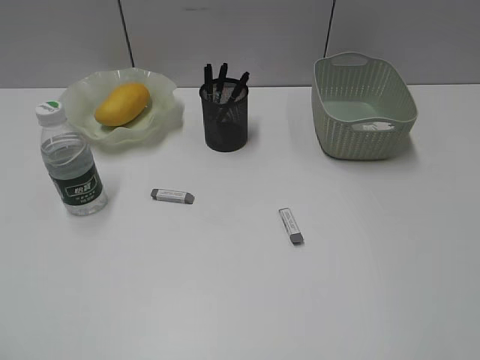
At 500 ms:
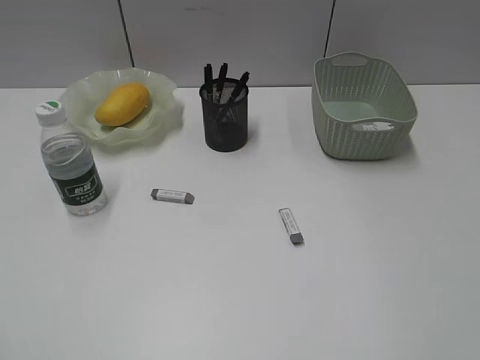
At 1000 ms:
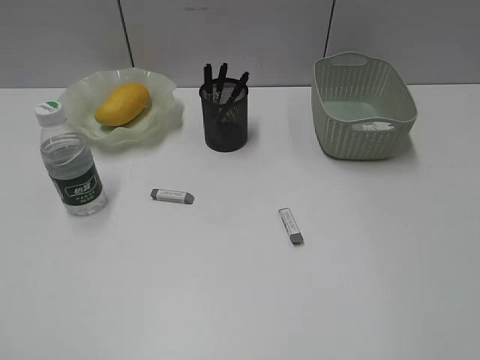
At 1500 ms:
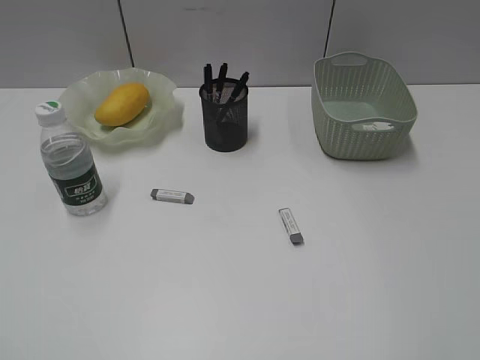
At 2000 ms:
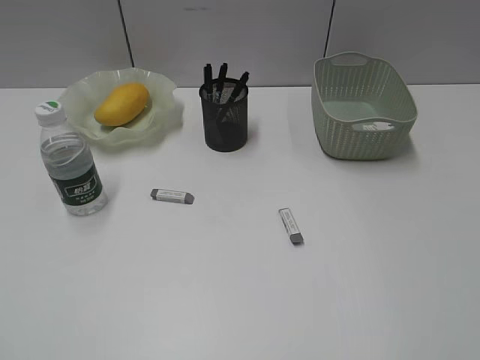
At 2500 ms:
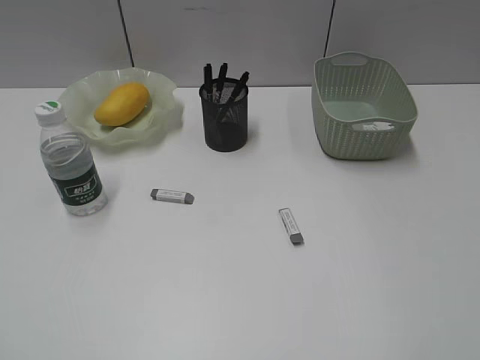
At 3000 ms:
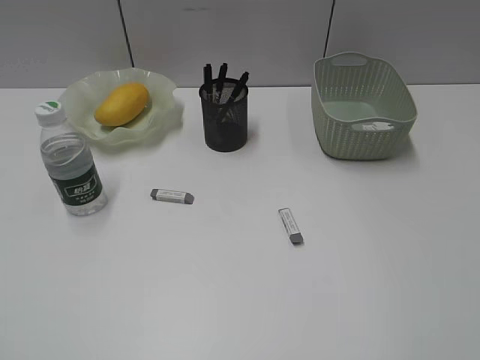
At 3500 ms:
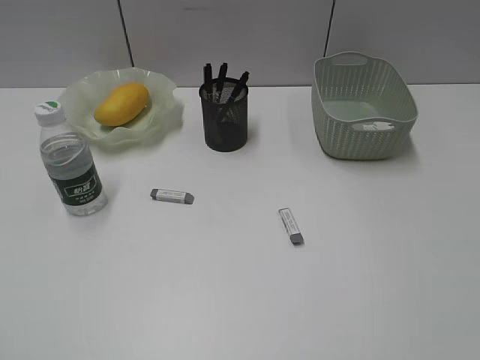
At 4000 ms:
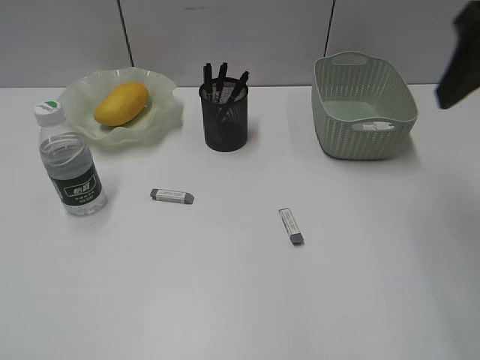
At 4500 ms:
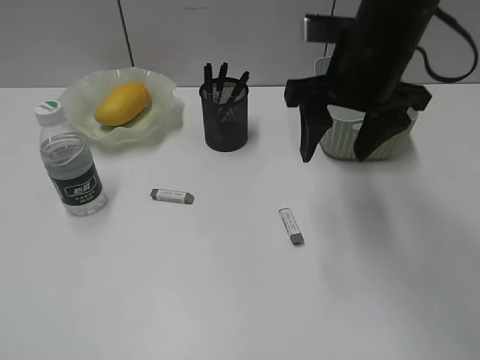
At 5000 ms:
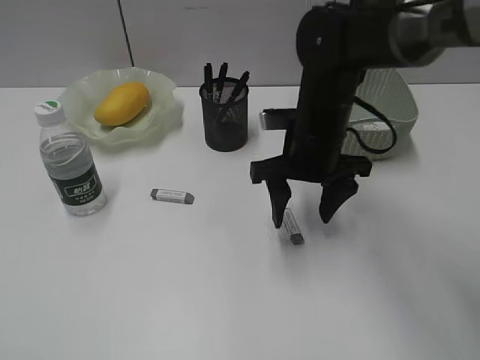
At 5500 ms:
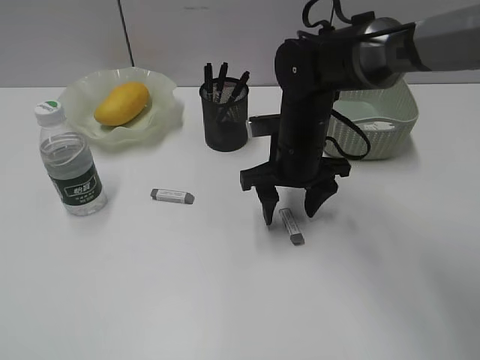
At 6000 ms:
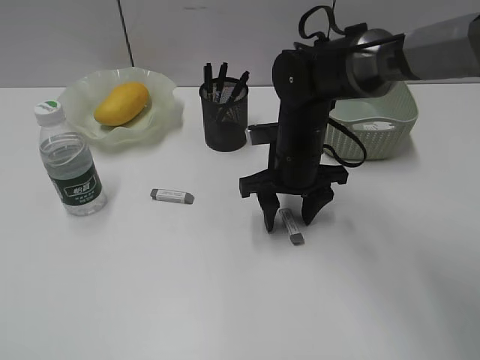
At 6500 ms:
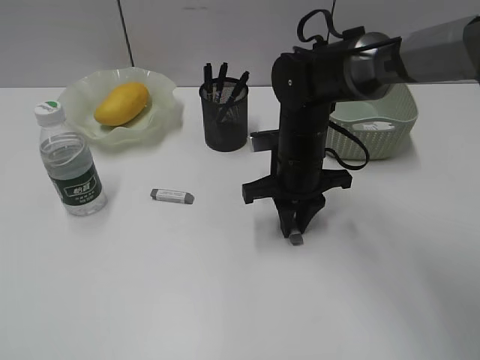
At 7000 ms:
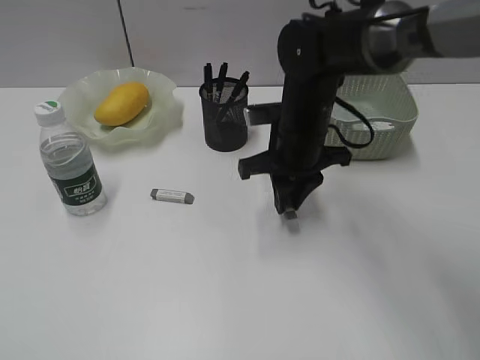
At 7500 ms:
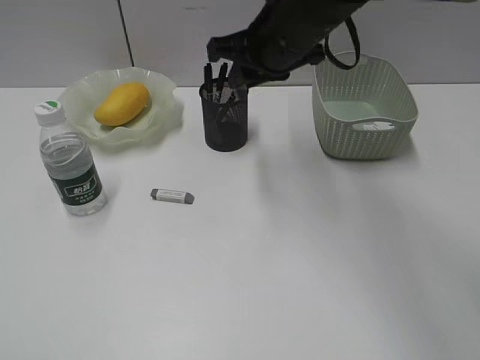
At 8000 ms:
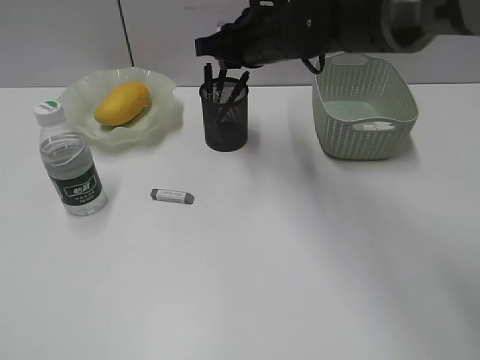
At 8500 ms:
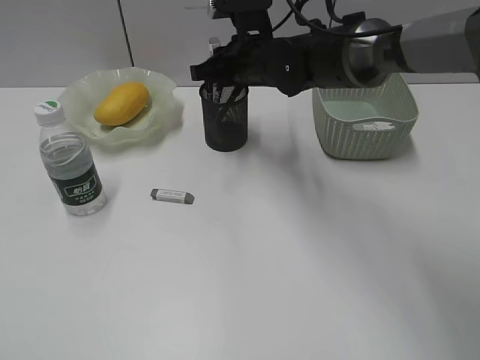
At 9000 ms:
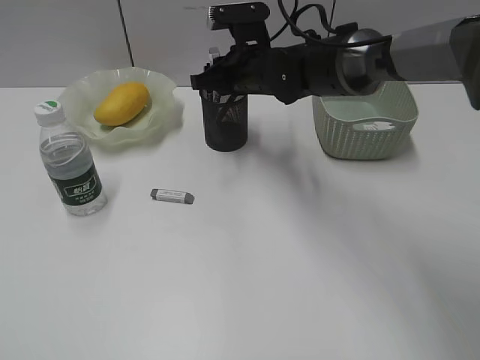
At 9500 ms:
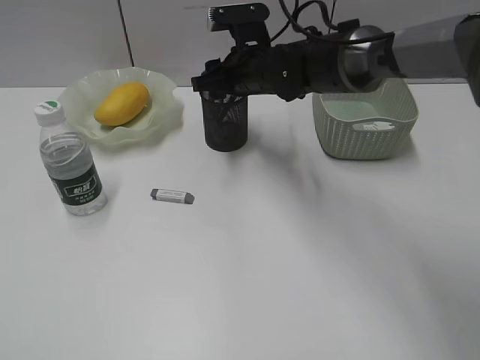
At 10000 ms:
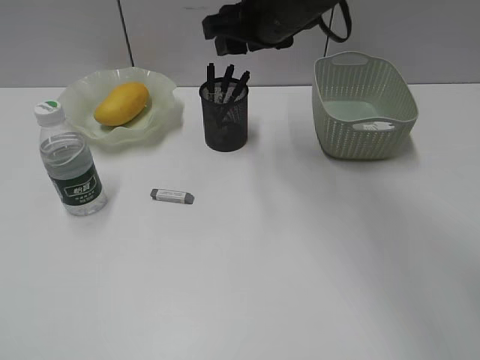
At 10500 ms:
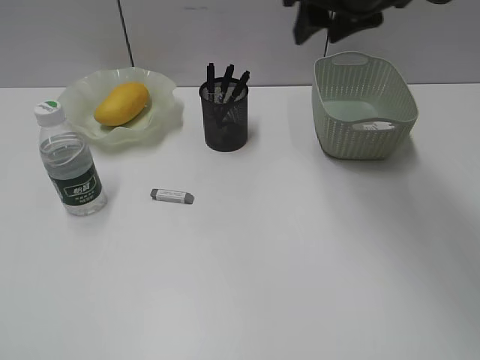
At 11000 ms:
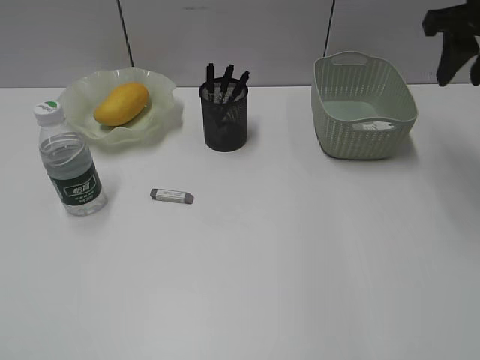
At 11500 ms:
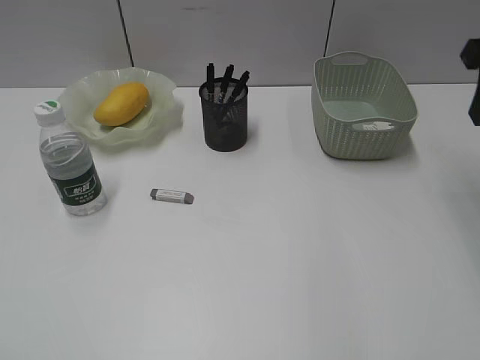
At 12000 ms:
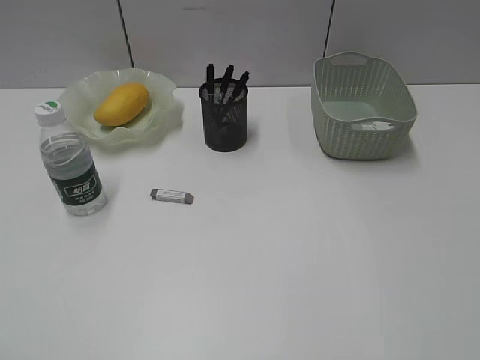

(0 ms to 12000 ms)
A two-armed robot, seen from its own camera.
Step, 0 ms - 6500 ms: Grasp the eraser with right gripper.
Step, 7000 ms - 9500 ms: Place the eraser in pen holder with right gripper.
0 ms - 2000 ms: Neither gripper changes place.
2000 ms - 4000 ms: The right gripper travels forward by approximately 25 cm.
4000 ms - 6000 ms: The right gripper moves downward, to the left and forward, about 35 cm.
6000 ms - 8000 ms: The right gripper goes roughly 15 cm upward and forward, and closes up.
8000 ms - 10000 ms: The right gripper moves about 5 cm downward and comes back, and opens its fingers.
10000 ms - 12000 ms: The right gripper is displaced backward, to the right and upward by approximately 35 cm.

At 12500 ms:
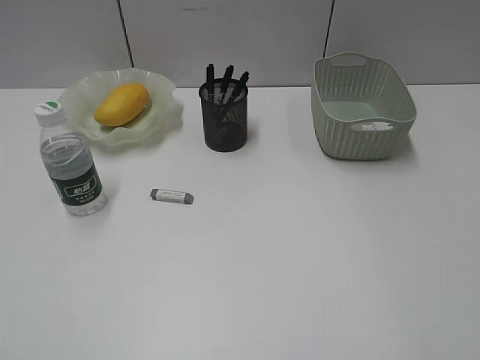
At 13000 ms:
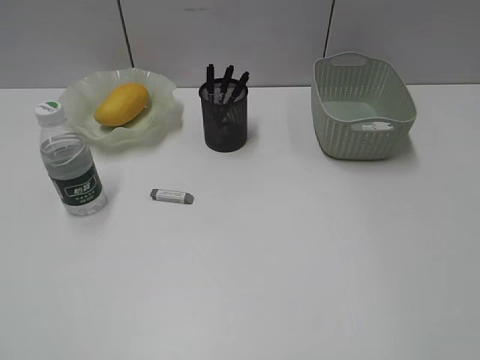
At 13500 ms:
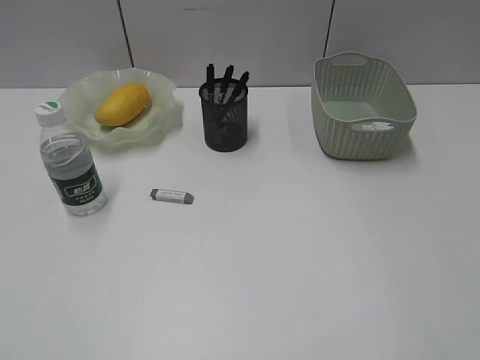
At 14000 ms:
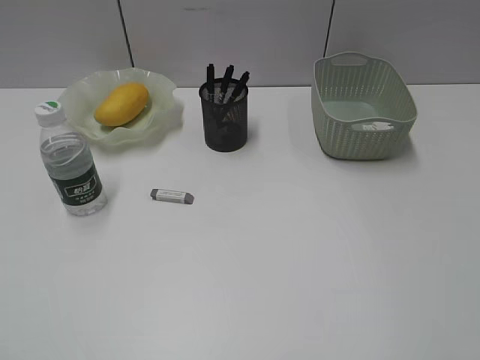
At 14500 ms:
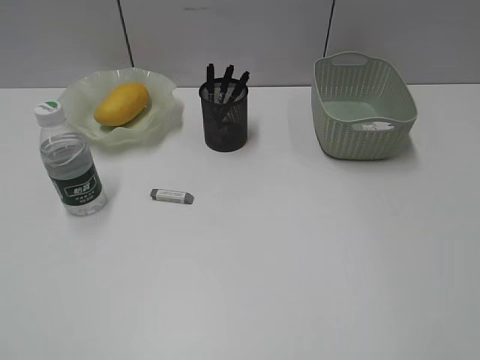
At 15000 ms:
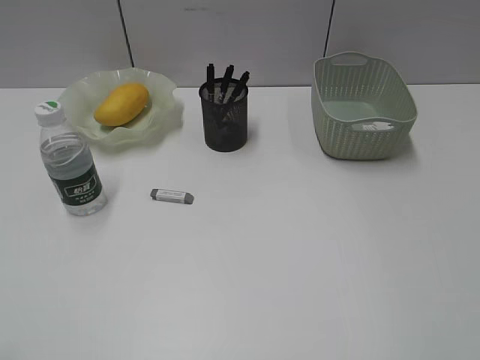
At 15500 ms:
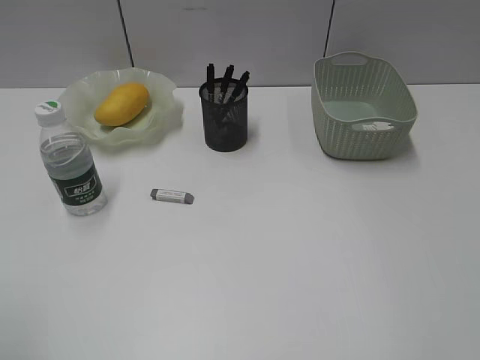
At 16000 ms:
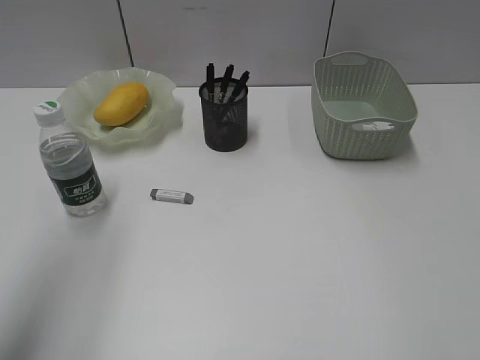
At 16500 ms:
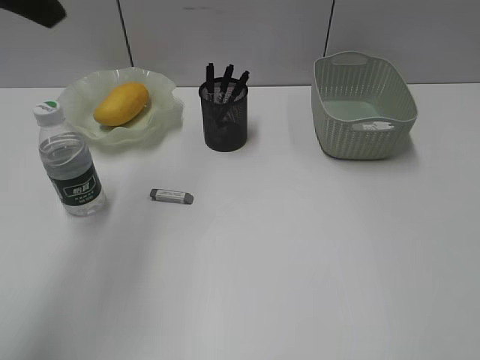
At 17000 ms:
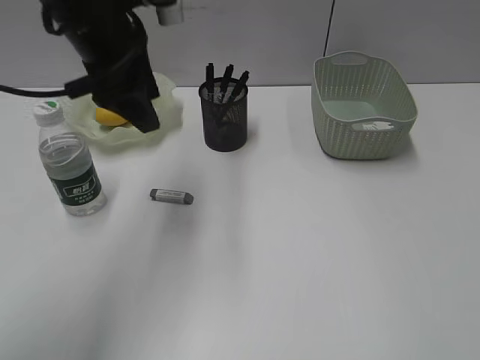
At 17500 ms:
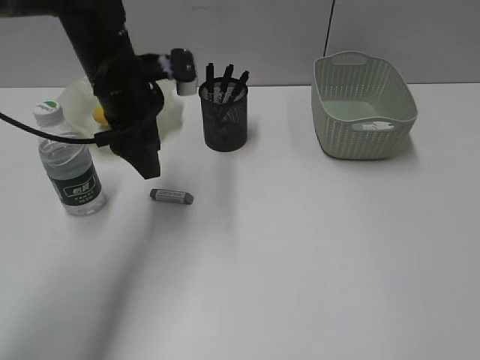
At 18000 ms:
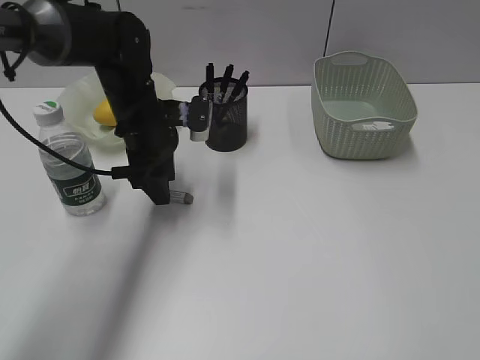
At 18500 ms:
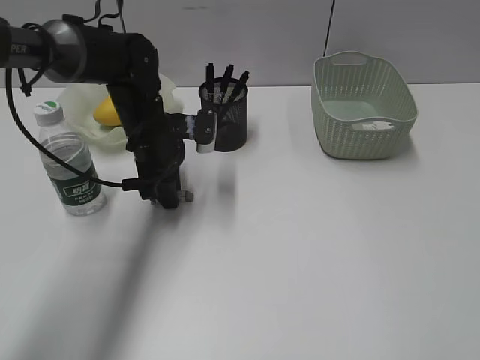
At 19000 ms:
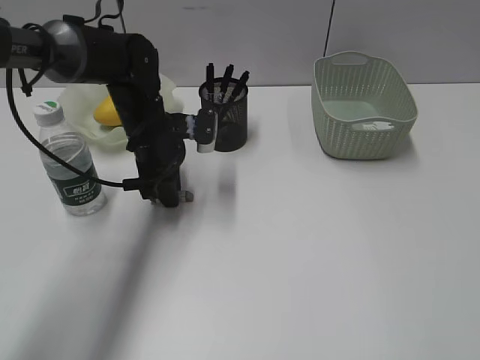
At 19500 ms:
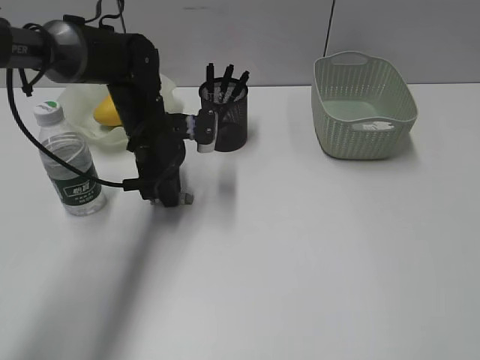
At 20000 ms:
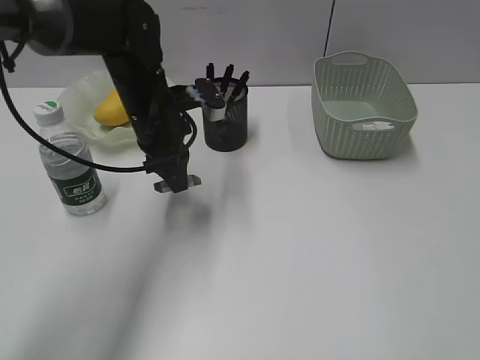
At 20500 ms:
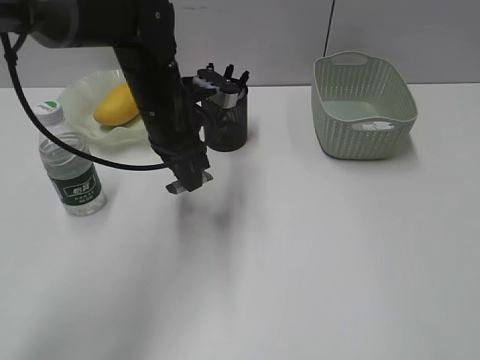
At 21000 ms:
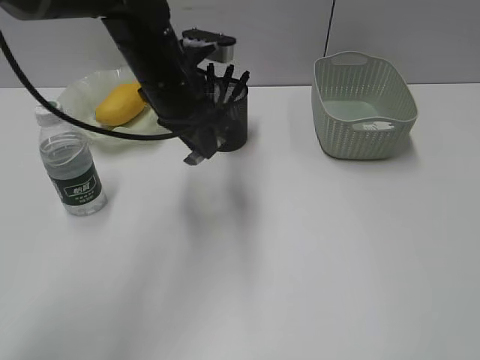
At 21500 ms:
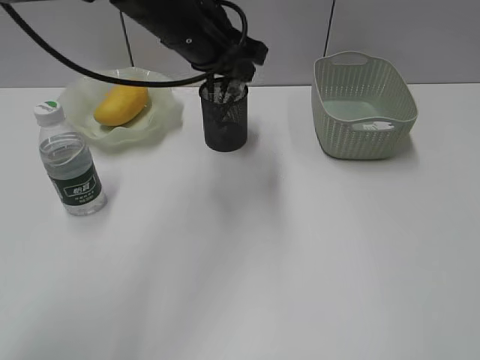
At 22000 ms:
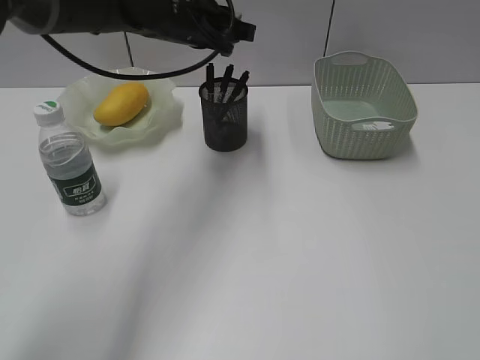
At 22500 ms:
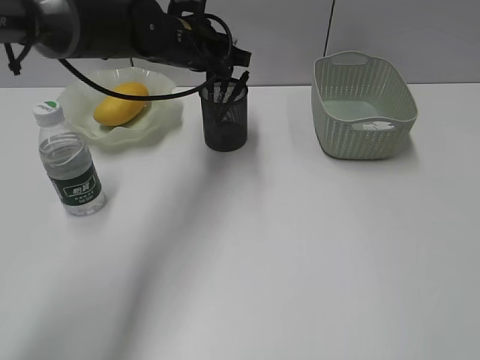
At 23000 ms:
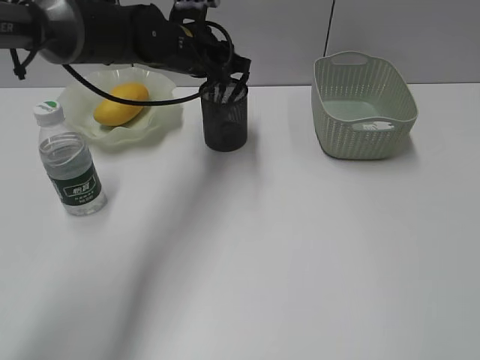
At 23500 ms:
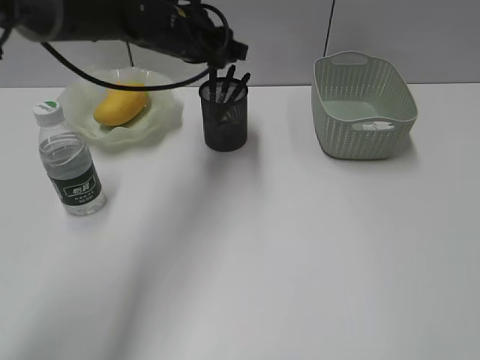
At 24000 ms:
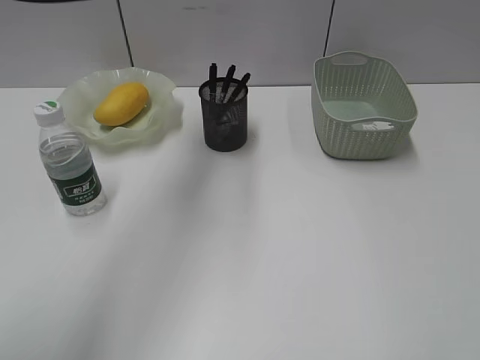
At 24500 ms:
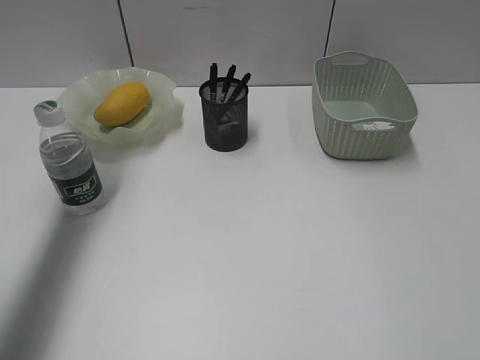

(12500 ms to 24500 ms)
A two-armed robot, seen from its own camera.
Step, 12500 ms - 19000 ms: Grasp the eraser with left gripper.
Step, 19500 ms - 23000 ms: Place the eraser in pen holder with left gripper.
14500 ms - 16500 ms: The left gripper travels forward and upward by about 35 cm, and opens its fingers.
16500 ms - 18500 ms: The left gripper goes some 30 cm downward, and closes up.
18500 ms - 20500 ms: The left gripper goes approximately 5 cm upward.
20500 ms - 22500 ms: The left gripper shifts roughly 10 cm forward.
22500 ms - 24500 ms: The left gripper moves to the left and upward, some 25 cm, and opens up.

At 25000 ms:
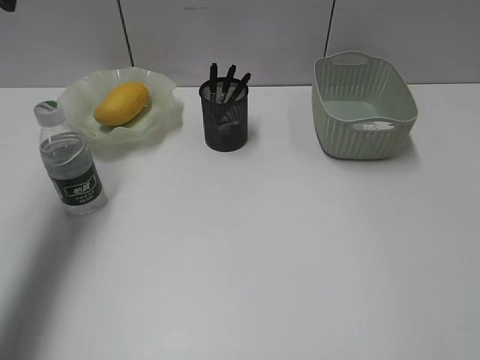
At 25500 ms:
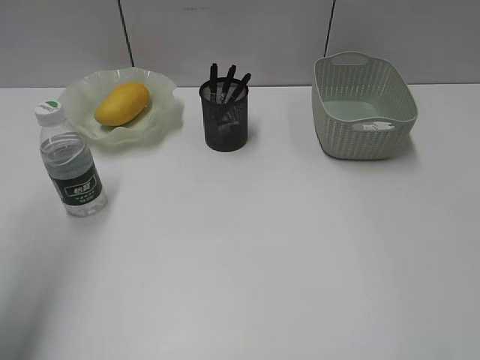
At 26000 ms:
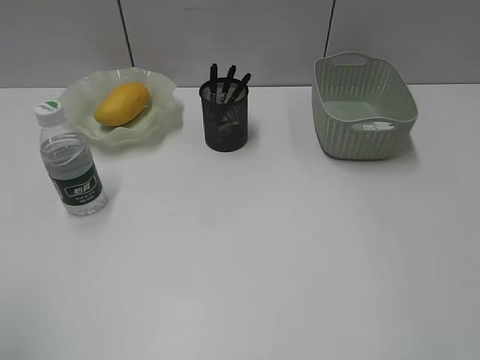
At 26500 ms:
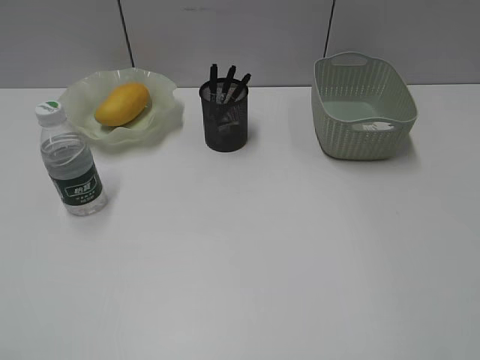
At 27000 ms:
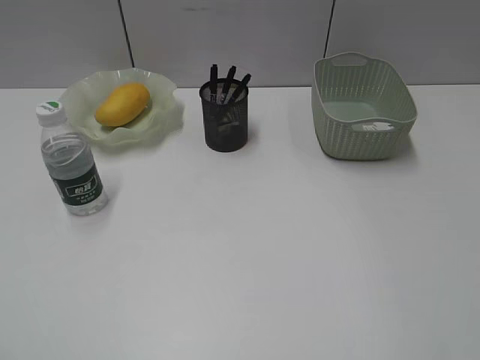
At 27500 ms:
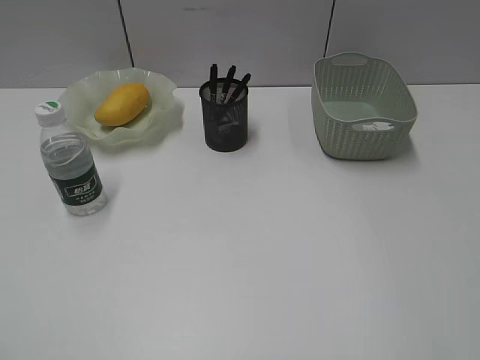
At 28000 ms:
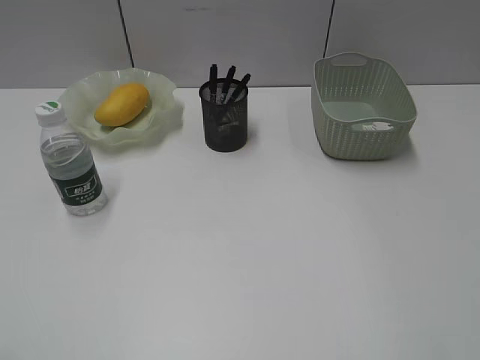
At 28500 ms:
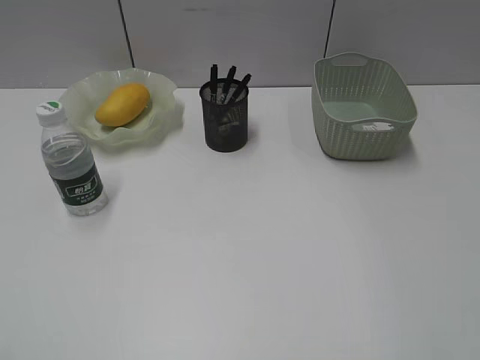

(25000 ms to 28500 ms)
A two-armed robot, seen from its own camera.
25000 ms - 27000 ms: The left gripper goes some 40 cm backward.
27000 ms - 28500 ms: Neither gripper changes place.
